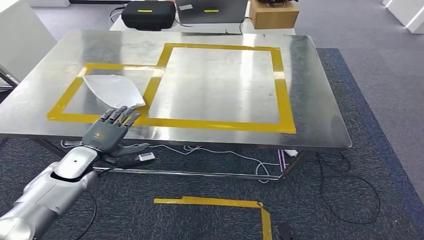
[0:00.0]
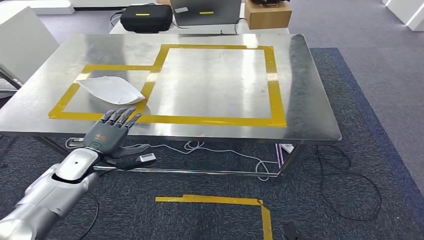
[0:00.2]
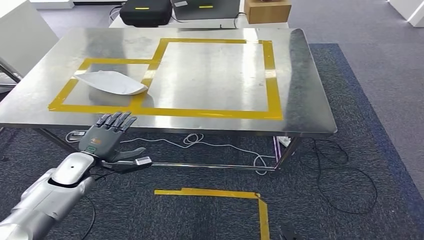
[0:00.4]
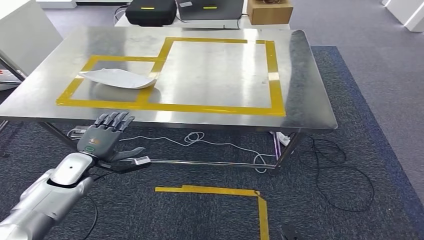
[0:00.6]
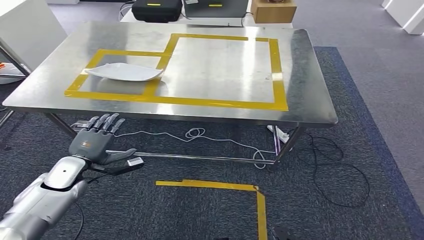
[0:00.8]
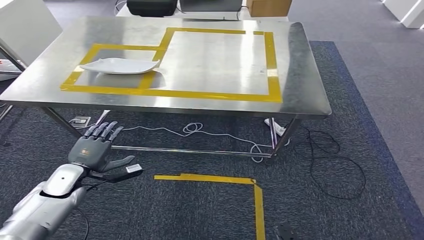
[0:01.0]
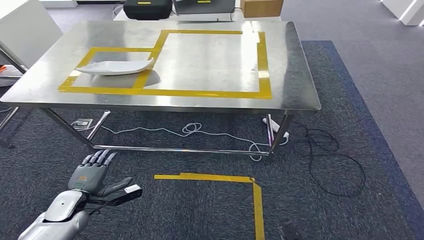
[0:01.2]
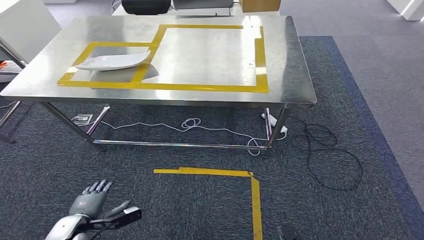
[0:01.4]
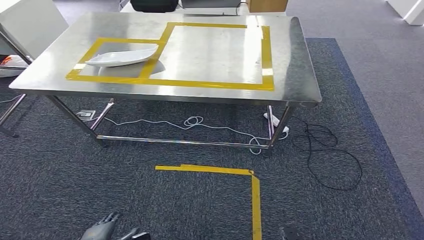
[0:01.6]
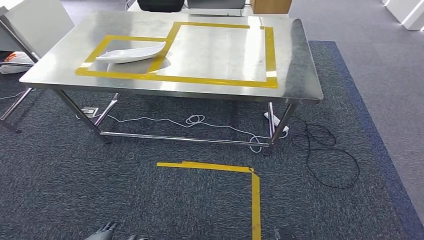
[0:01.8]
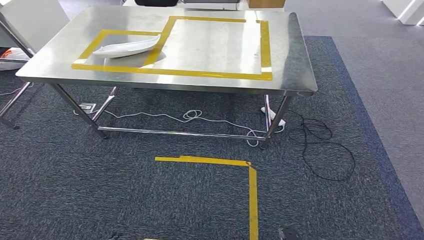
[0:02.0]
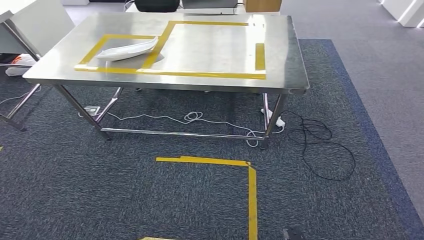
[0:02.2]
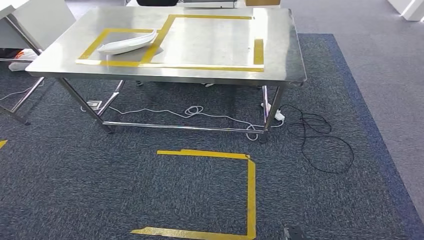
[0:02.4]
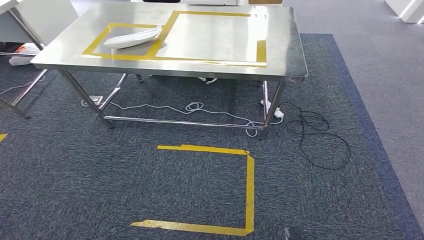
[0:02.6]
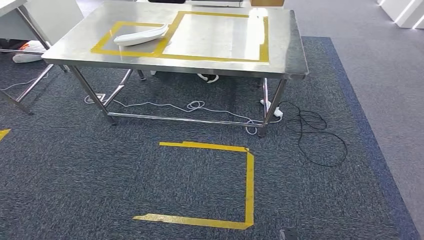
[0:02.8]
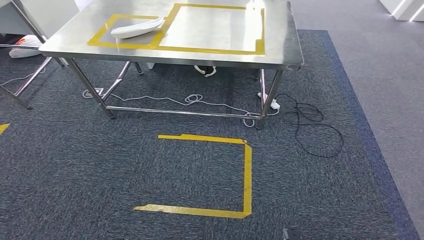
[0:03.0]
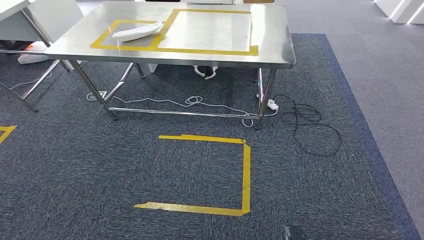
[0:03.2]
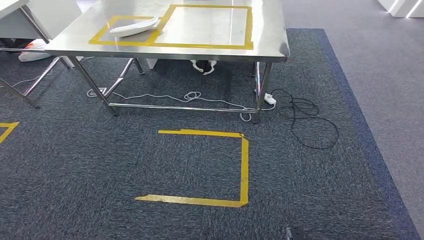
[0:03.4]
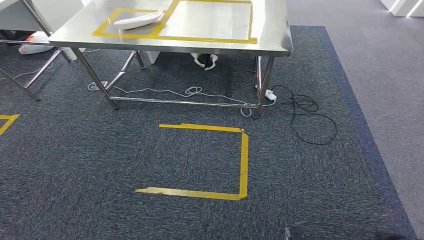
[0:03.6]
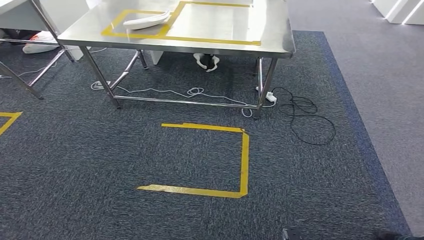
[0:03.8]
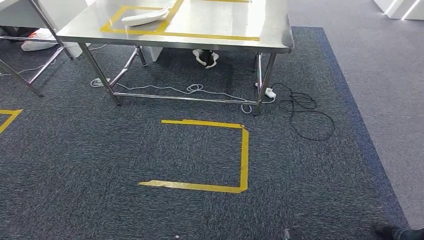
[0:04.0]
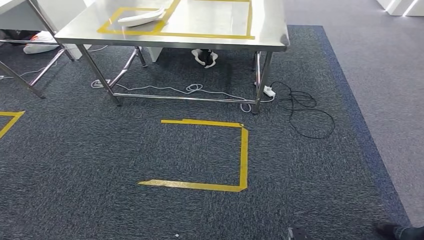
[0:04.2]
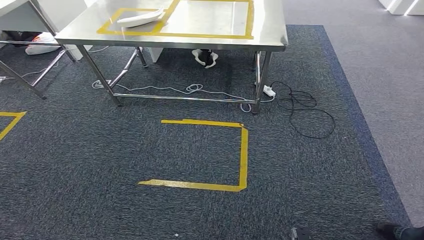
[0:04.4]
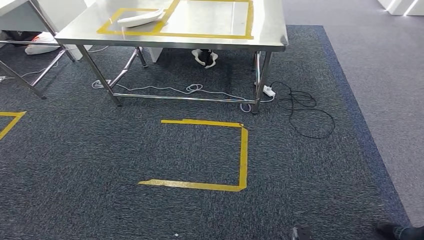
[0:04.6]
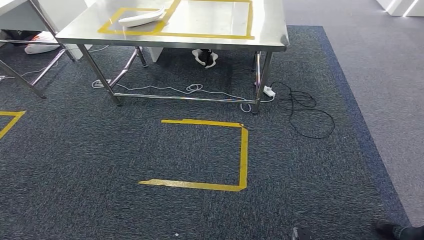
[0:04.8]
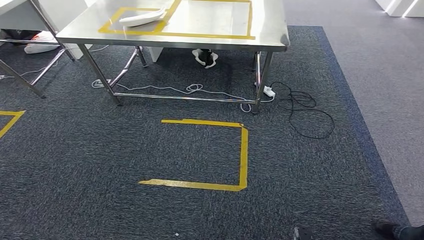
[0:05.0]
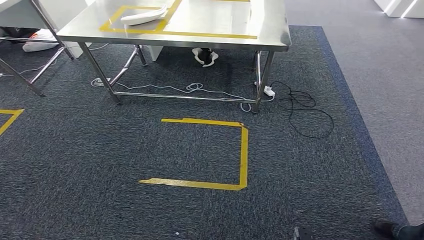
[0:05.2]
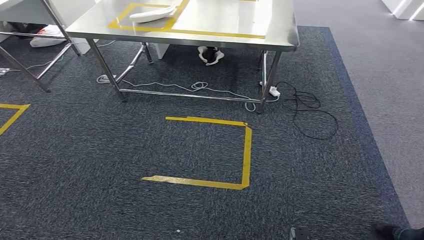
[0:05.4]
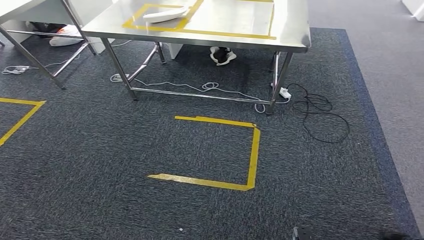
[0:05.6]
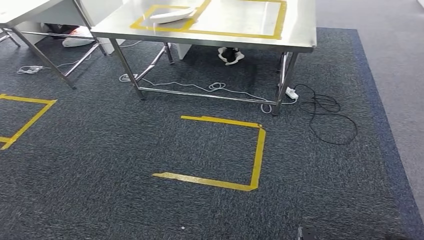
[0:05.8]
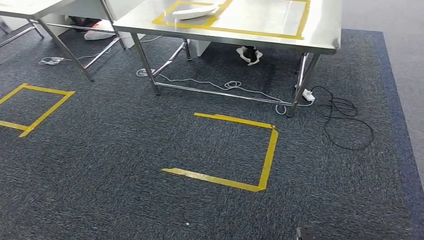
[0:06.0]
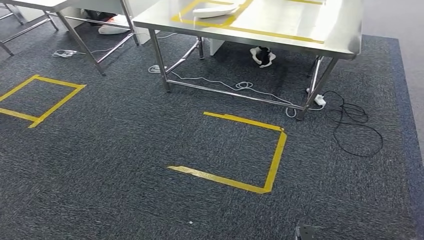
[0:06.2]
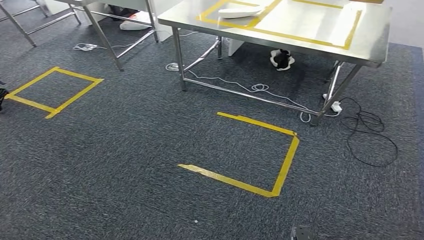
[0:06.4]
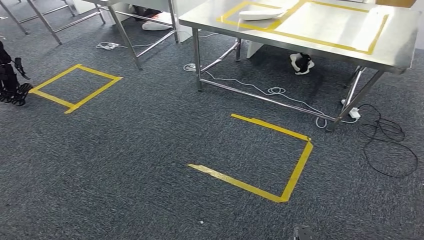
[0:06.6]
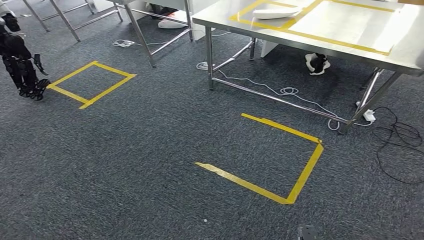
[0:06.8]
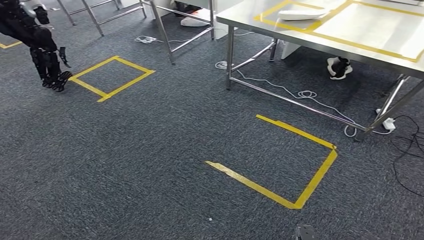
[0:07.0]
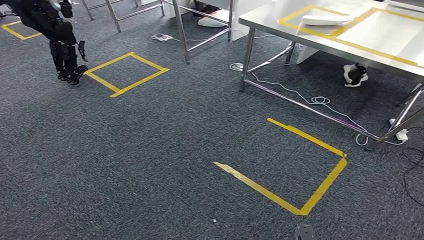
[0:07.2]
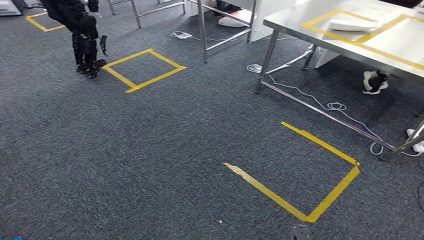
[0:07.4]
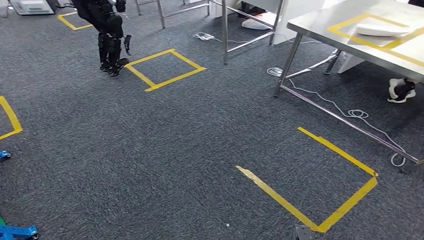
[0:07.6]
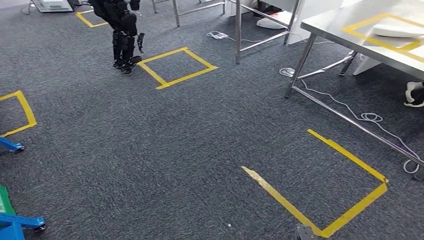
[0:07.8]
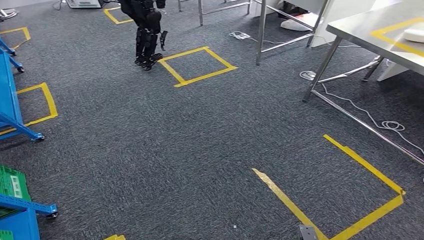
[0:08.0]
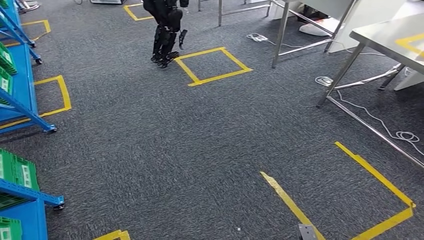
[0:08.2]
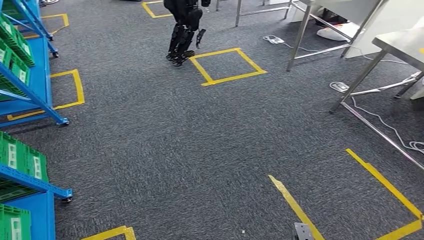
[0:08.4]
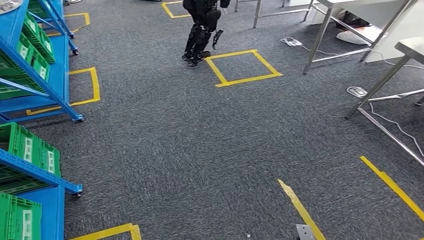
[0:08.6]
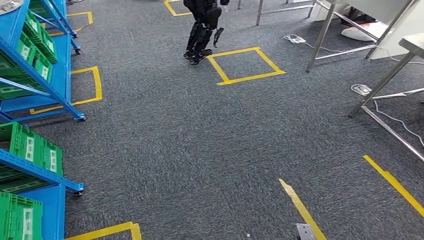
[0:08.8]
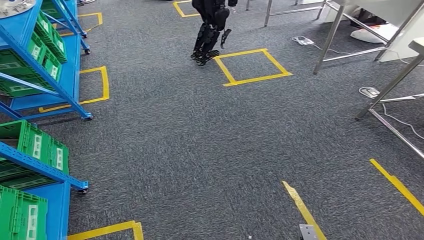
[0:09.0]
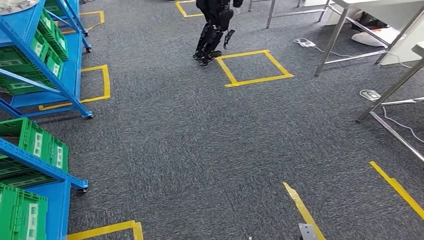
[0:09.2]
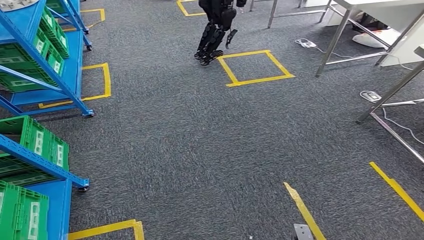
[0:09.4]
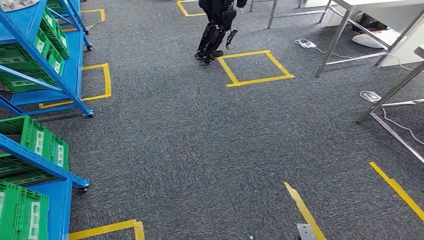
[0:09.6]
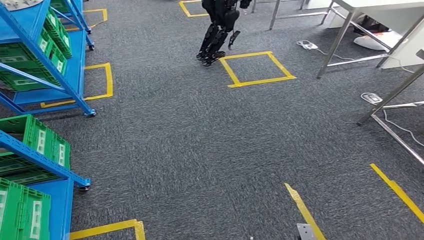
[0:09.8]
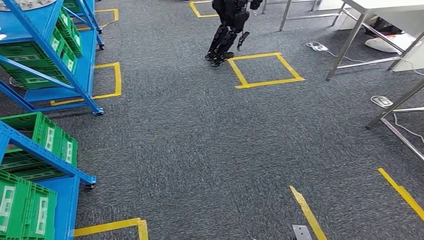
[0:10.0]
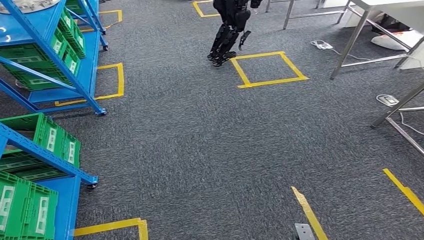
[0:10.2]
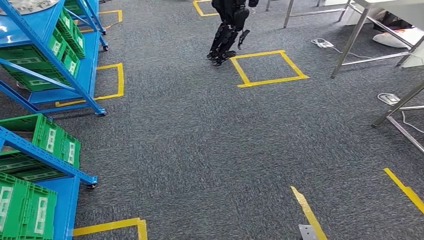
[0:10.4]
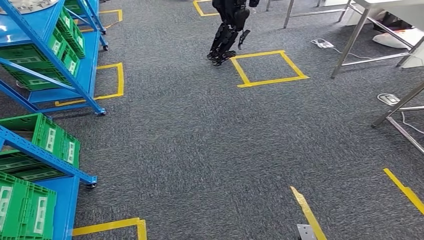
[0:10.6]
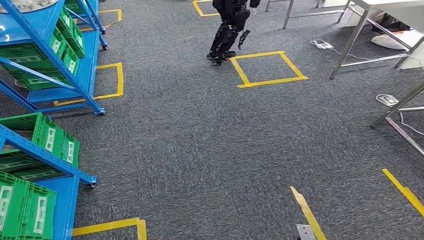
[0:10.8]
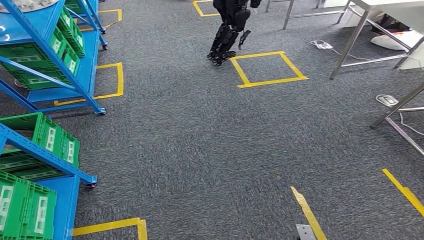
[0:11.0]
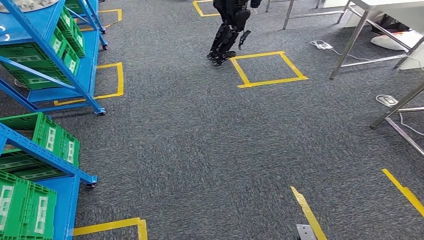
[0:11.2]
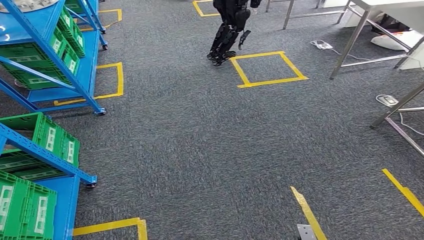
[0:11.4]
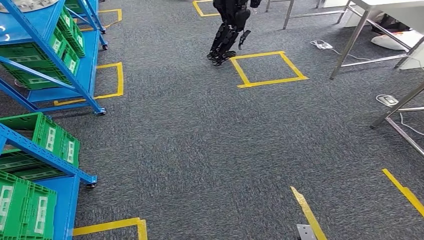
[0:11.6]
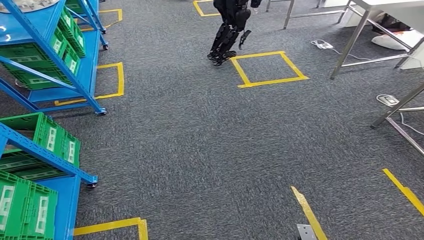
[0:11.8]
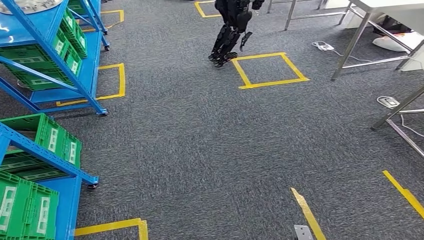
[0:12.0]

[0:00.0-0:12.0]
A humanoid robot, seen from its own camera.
0:10.4 to 0:12.0: Neither hand changes place.

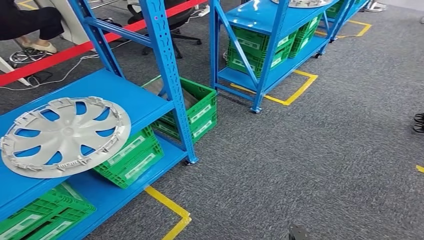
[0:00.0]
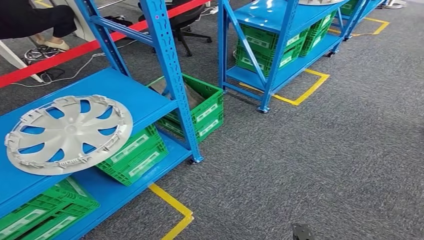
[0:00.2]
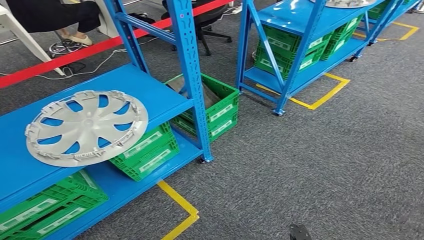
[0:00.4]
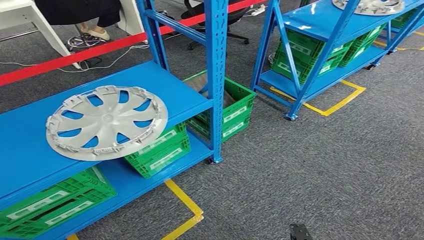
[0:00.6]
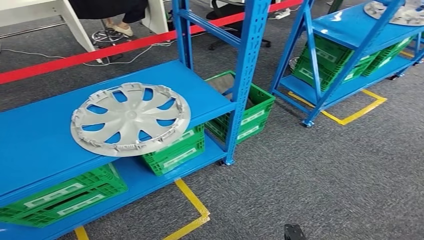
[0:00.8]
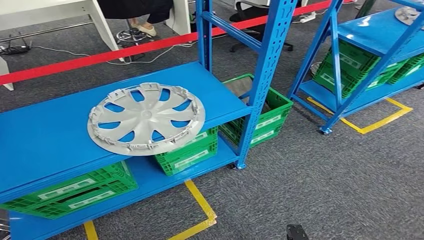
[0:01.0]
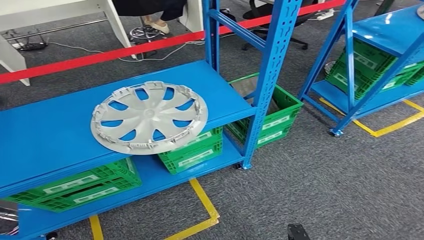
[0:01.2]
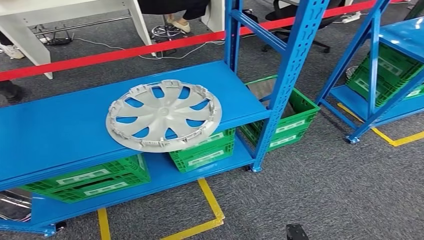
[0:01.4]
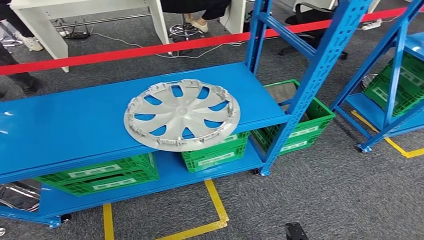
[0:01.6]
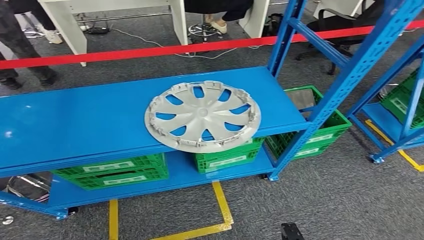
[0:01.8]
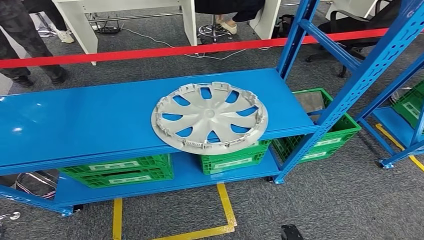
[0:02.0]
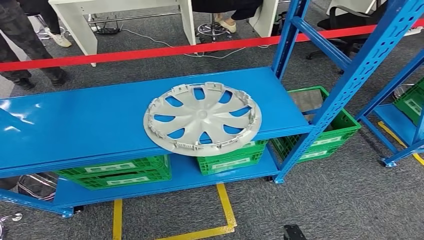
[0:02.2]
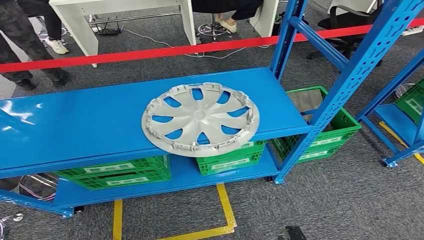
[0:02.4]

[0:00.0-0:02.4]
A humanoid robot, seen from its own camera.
Step, 0:00.0 to 0:02.4: Move to the initial position at the workbench.
